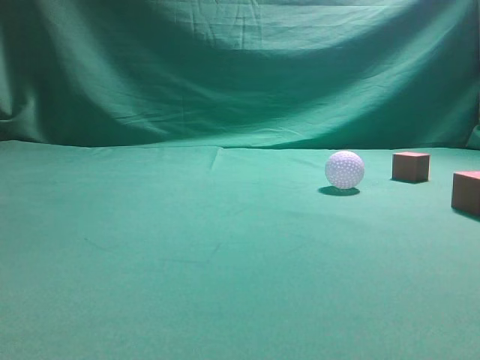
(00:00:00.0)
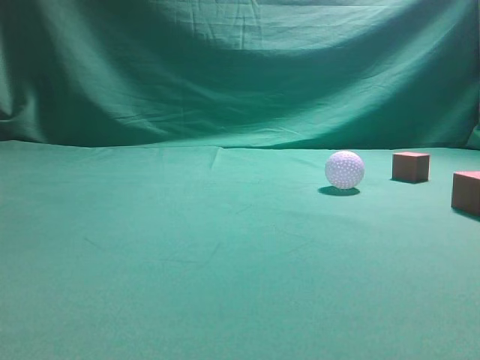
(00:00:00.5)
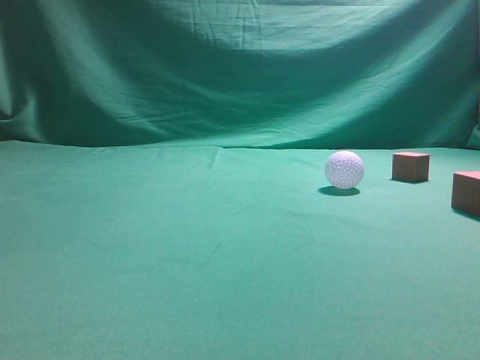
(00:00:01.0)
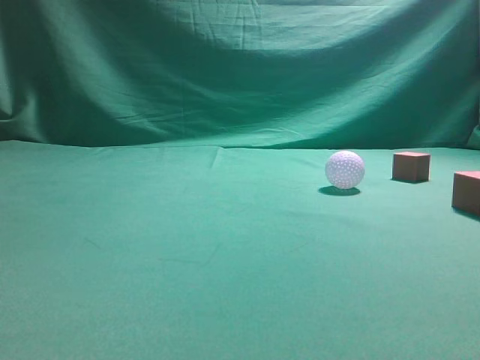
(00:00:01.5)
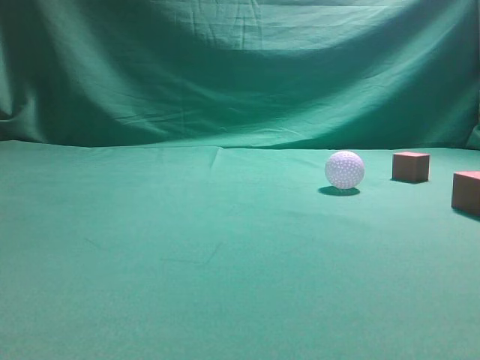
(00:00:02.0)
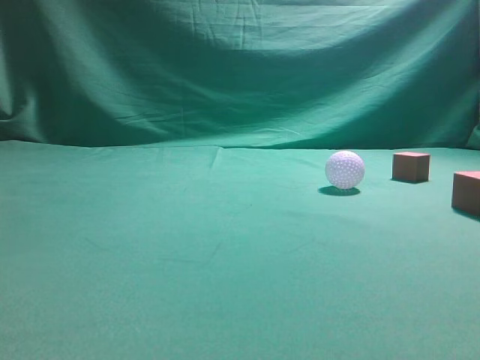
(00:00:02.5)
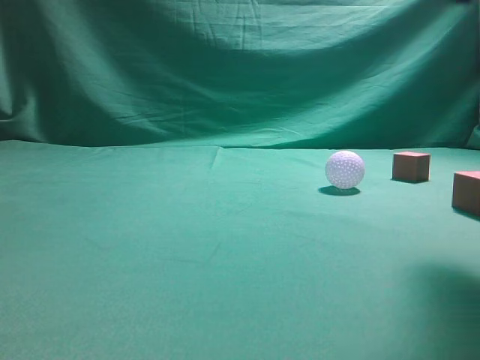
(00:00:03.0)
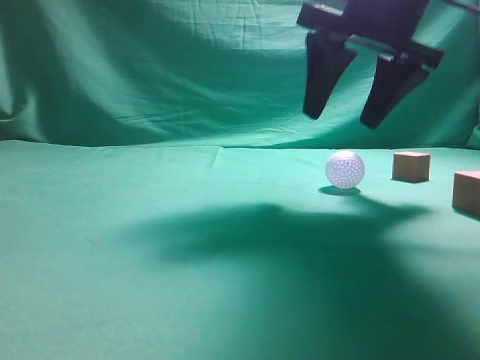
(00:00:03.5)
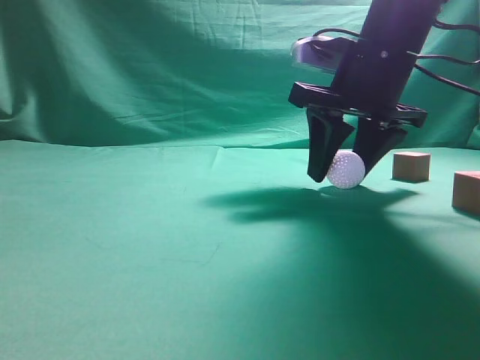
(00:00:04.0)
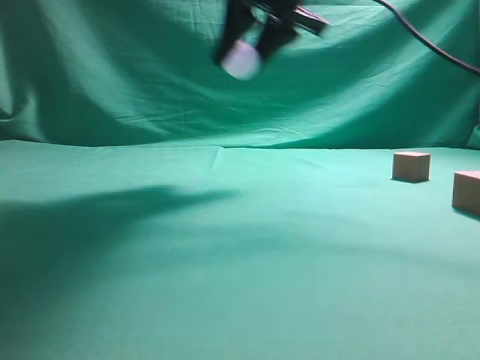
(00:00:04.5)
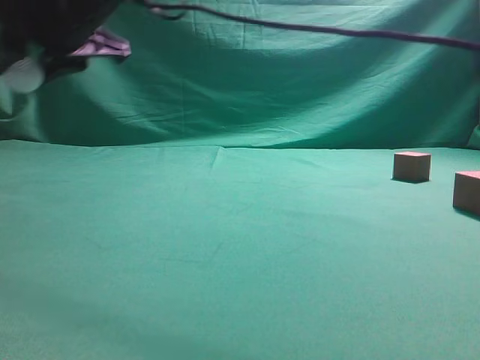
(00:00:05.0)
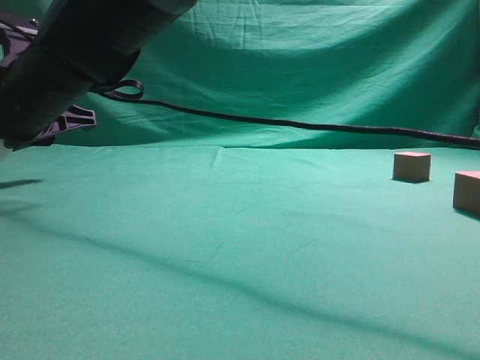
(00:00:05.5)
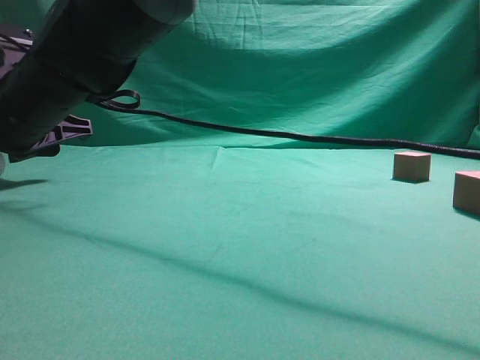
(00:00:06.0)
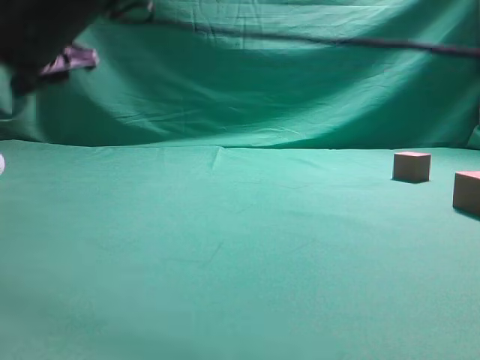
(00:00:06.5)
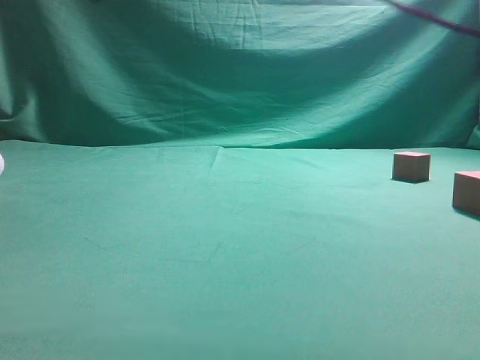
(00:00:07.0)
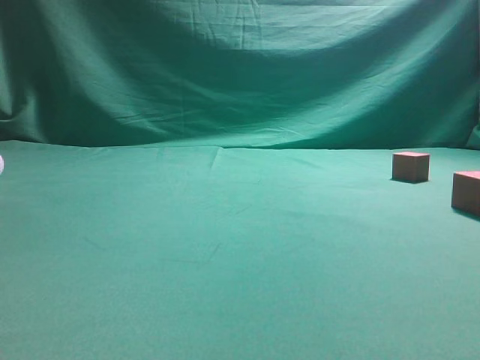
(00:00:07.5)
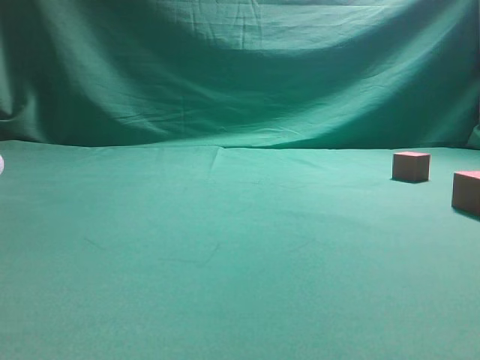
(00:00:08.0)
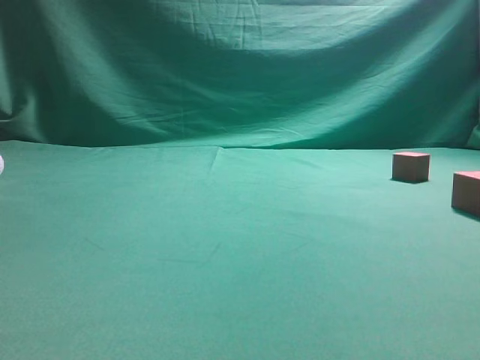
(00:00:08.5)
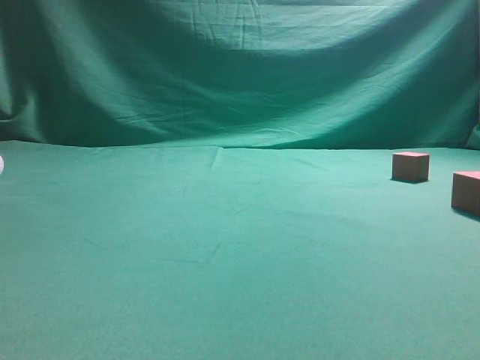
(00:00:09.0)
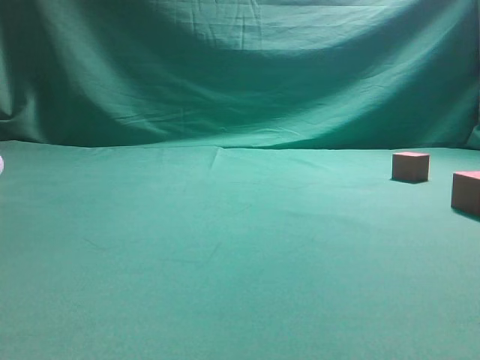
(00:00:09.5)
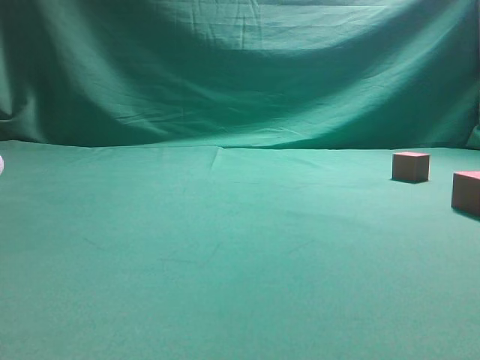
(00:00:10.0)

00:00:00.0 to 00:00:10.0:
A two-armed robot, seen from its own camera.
Step, 00:00:00.0 to 00:00:04.0: Grasp the spherical object on the right side.
00:00:02.0 to 00:00:04.0: The right gripper shifts roughly 40 cm forward, to the left and downward, and opens its fingers.
00:00:04.0 to 00:00:06.0: The right gripper travels to the left by roughly 30 cm.
00:00:06.0 to 00:00:08.0: The right gripper goes approximately 50 cm to the right, upward and backward, and closes its fingers.
